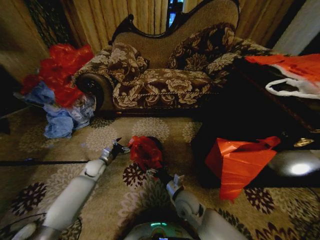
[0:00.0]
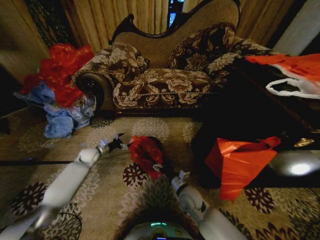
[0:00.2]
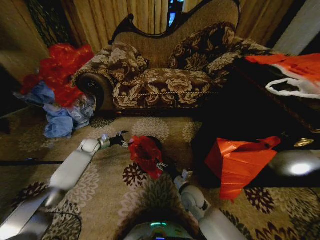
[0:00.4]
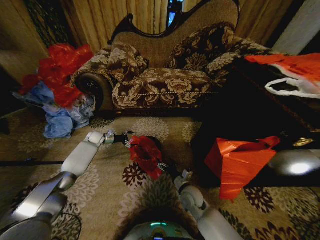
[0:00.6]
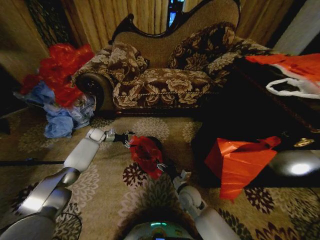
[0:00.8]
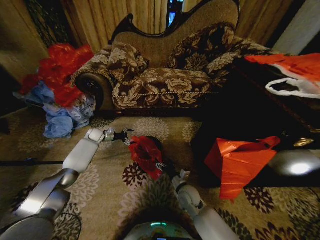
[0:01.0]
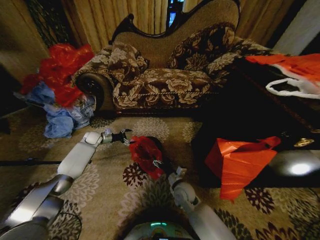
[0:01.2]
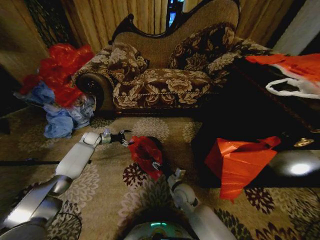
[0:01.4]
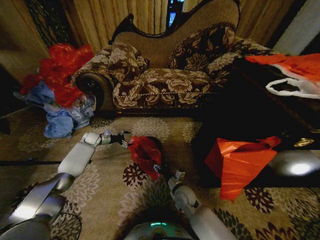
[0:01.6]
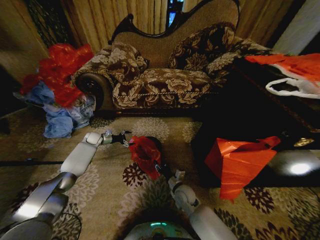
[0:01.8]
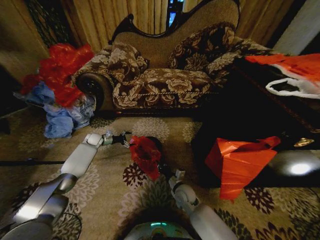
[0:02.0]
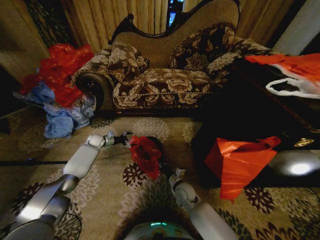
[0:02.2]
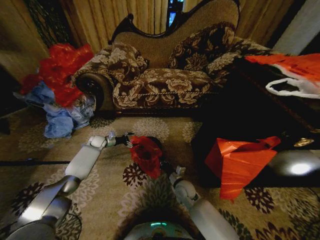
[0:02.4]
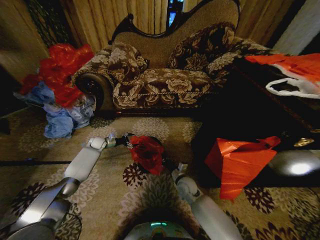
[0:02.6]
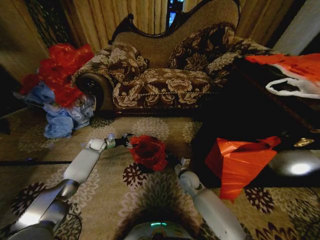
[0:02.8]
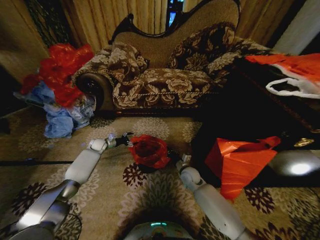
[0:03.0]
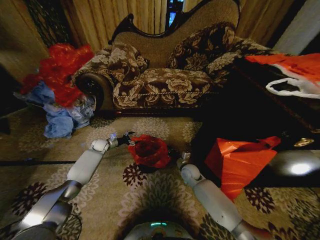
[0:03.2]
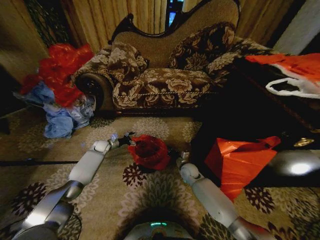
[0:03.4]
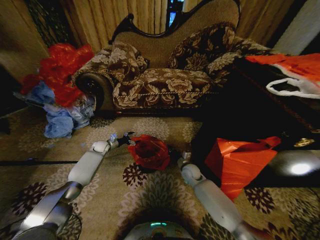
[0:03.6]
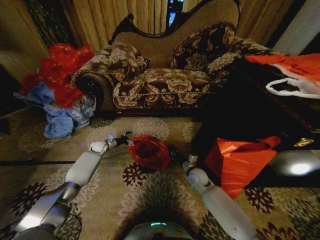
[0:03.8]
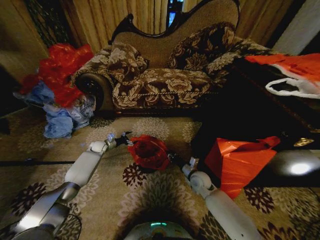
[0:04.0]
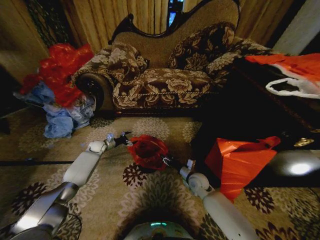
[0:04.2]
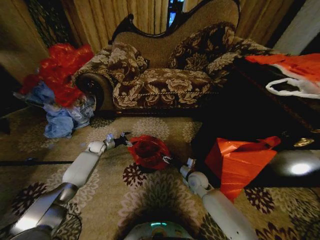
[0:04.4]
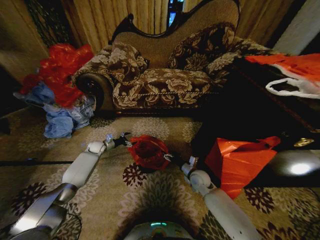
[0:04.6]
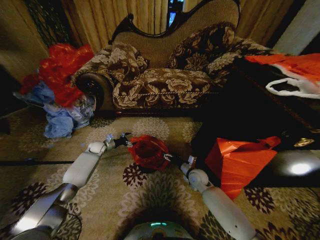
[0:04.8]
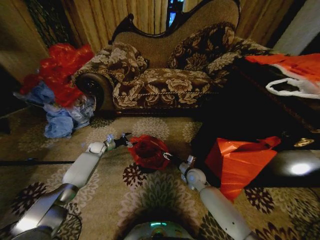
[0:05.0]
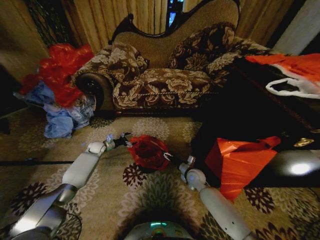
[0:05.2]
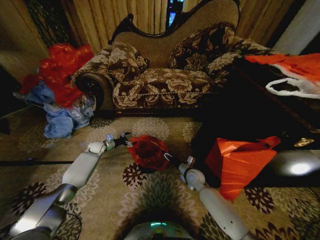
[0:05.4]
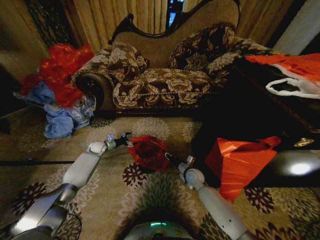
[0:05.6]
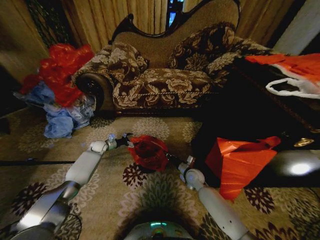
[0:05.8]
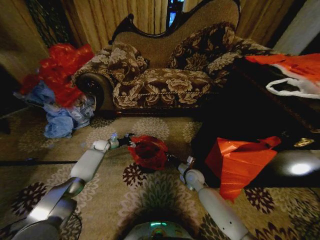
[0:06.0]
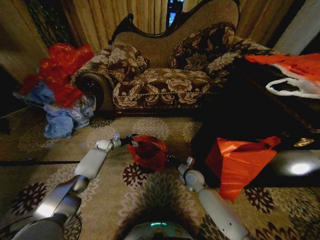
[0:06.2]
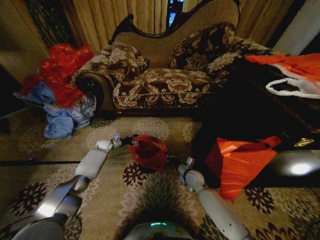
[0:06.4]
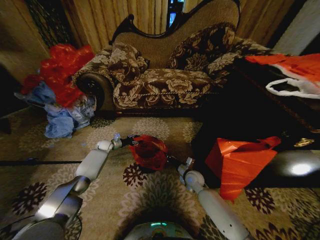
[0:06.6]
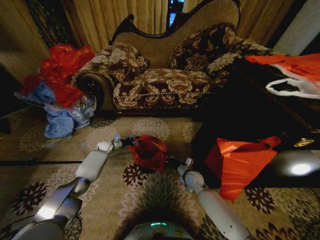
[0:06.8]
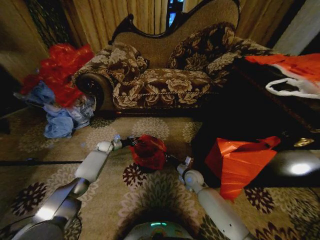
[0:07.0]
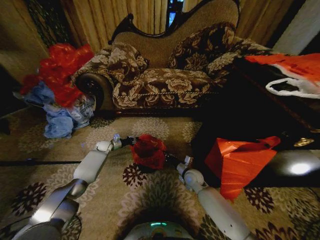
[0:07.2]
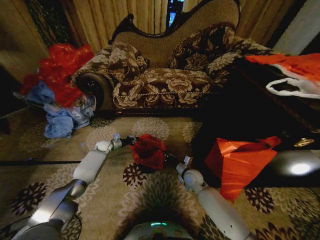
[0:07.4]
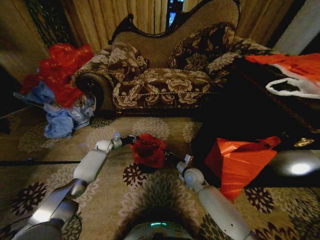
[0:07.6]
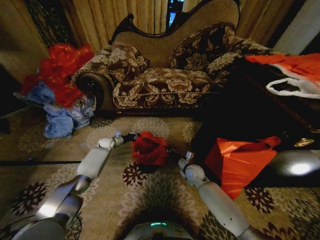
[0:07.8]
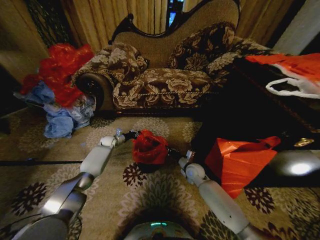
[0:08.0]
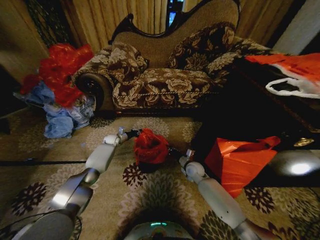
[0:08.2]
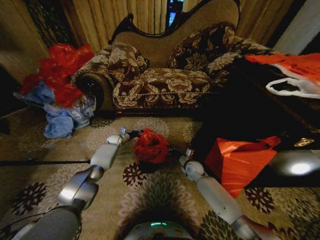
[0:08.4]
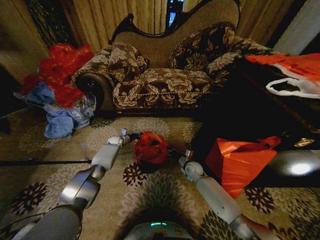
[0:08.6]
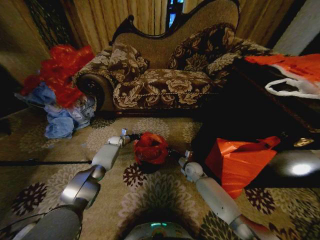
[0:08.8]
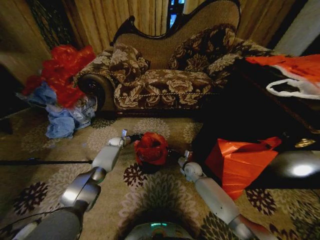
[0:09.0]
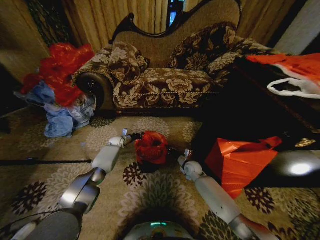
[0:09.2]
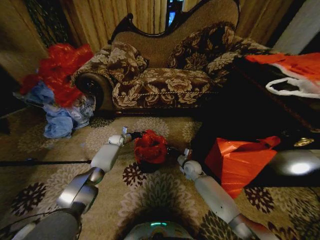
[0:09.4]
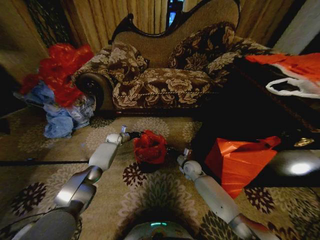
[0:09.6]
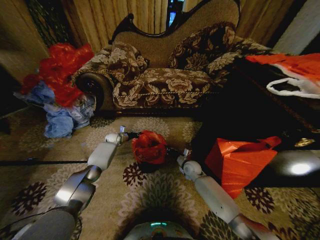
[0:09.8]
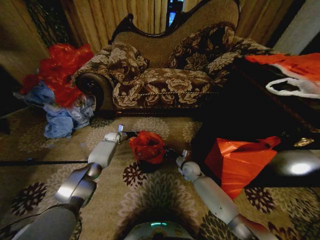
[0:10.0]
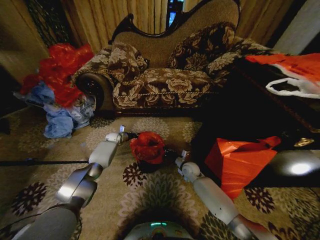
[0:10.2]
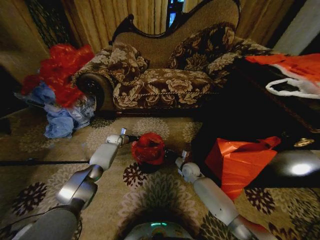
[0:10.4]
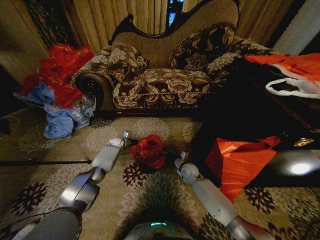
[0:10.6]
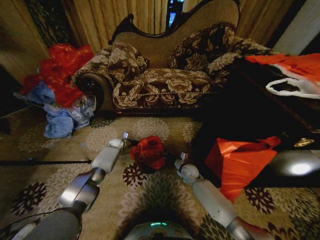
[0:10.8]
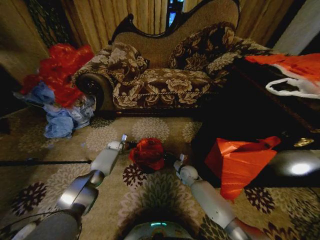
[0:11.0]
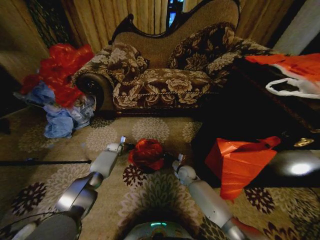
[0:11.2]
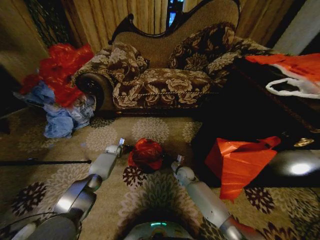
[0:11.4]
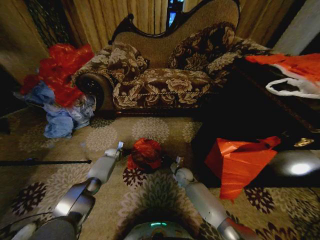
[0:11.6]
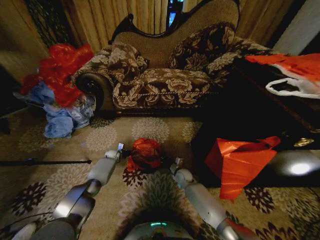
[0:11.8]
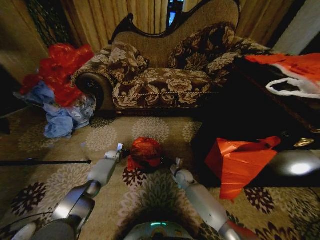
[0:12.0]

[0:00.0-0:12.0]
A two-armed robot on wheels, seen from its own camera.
Task of the whole recording: Place a garbage bag over the trash bin.
0.0 to 1.6 s: The right gripper shifts by some 5 cm. The left gripper goes some 15 cm forward and to the left.
1.6 to 3.0 s: The left gripper ends up about 5 cm from where it was. Meanwhile the right gripper goes approximately 10 cm forward, and closes.
3.0 to 4.4 s: The right gripper opens.
4.4 to 6.0 s: The right gripper closes its fingers.
6.0 to 7.6 s: The left gripper closes.
7.6 to 9.0 s: The right gripper is displaced forward by approximately 5 cm; the left gripper is displaced to the right by about 5 cm.
9.0 to 10.4 s: There are only small adjustments of the grippers.
10.4 to 12.0 s: The left gripper travels downward and backward by approximately 10 cm; the right gripper heads downward, covering about 5 cm.

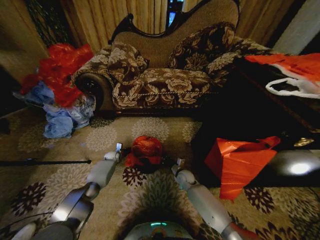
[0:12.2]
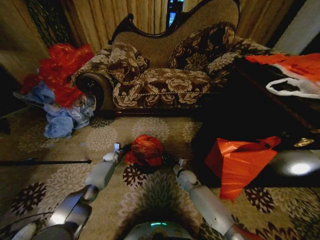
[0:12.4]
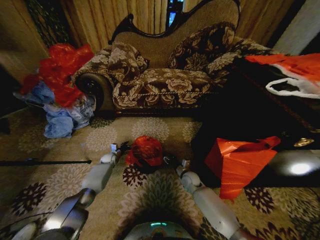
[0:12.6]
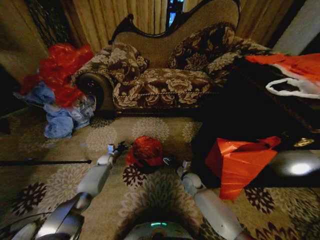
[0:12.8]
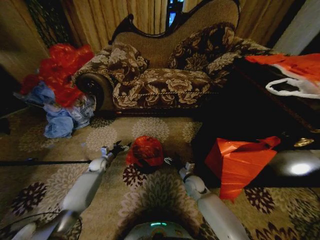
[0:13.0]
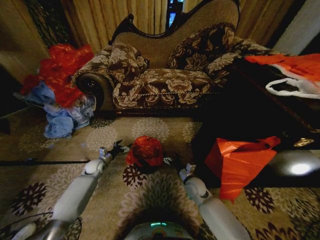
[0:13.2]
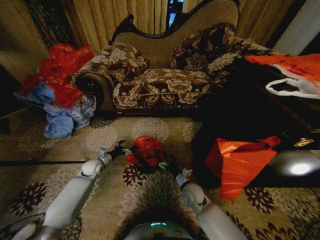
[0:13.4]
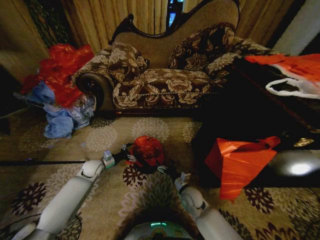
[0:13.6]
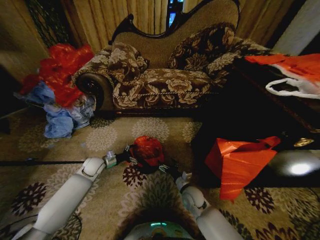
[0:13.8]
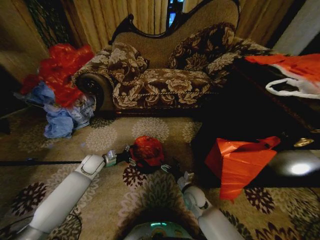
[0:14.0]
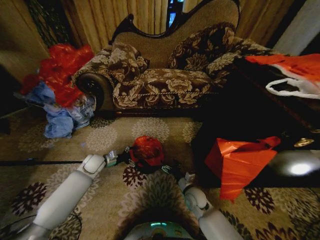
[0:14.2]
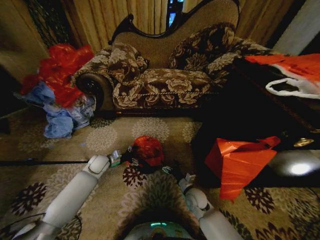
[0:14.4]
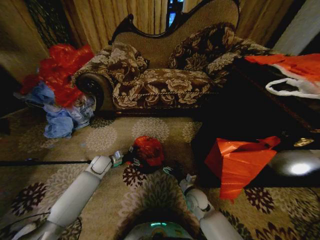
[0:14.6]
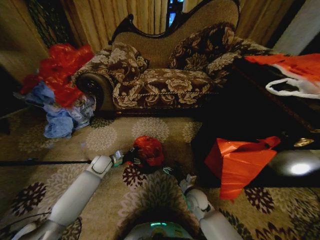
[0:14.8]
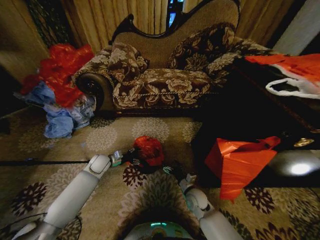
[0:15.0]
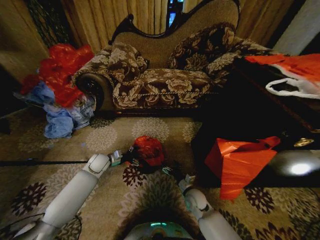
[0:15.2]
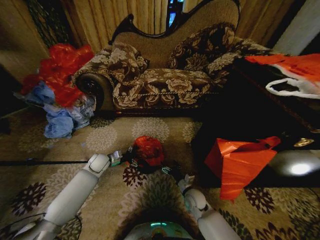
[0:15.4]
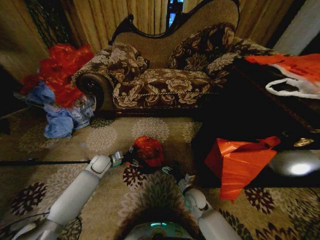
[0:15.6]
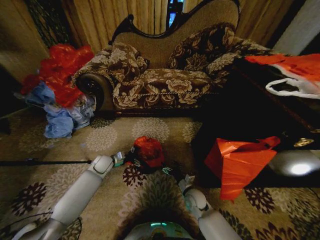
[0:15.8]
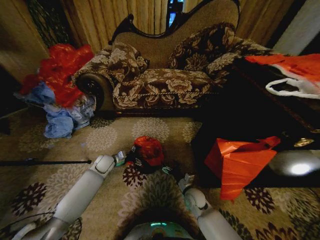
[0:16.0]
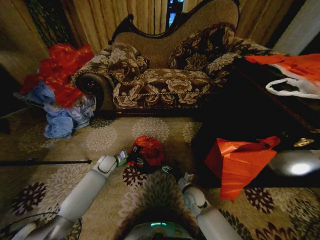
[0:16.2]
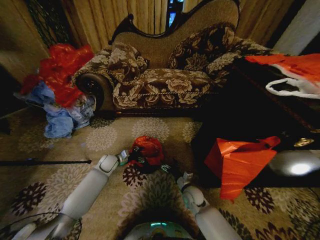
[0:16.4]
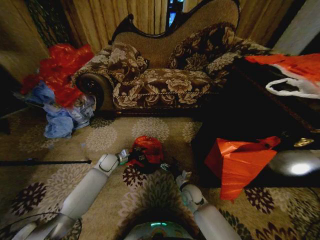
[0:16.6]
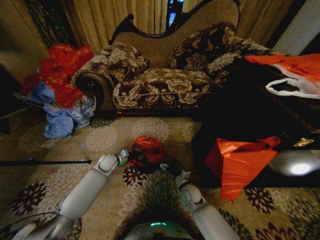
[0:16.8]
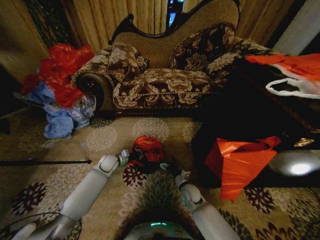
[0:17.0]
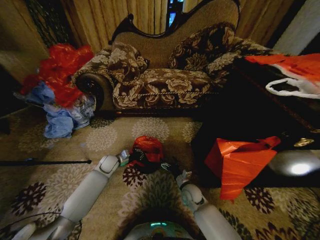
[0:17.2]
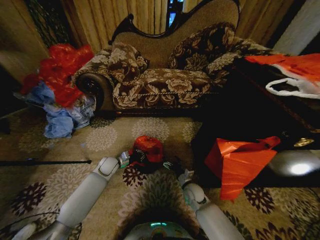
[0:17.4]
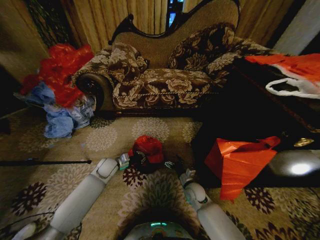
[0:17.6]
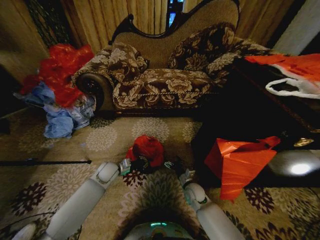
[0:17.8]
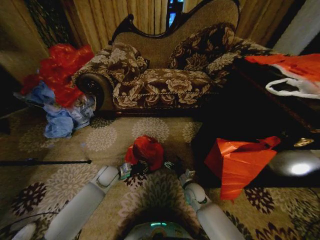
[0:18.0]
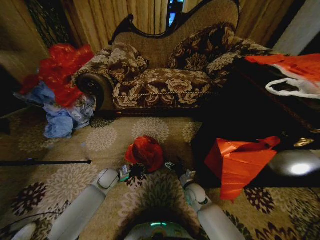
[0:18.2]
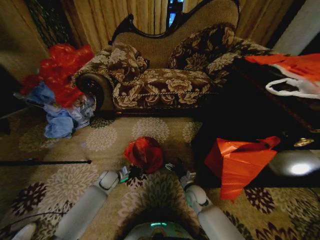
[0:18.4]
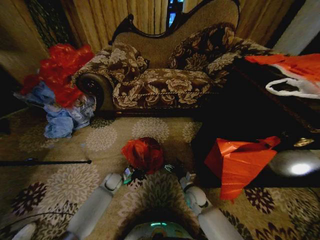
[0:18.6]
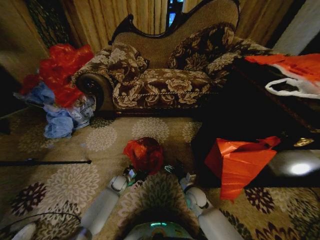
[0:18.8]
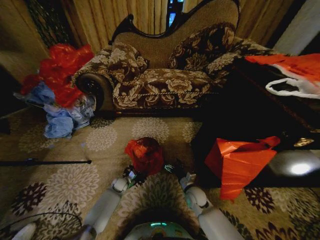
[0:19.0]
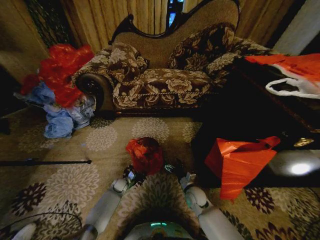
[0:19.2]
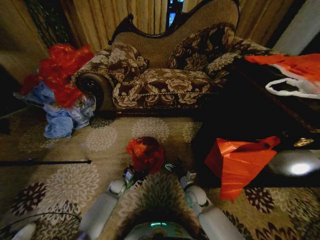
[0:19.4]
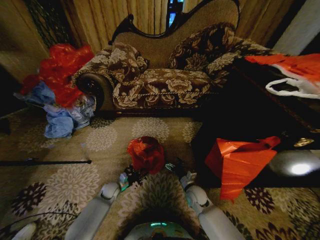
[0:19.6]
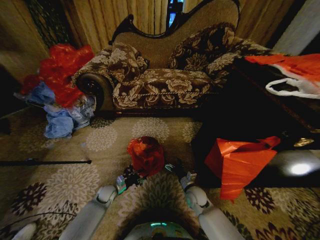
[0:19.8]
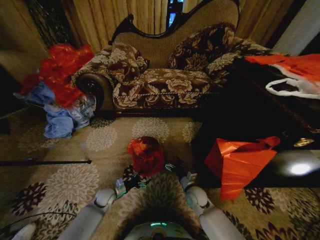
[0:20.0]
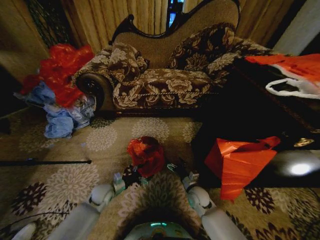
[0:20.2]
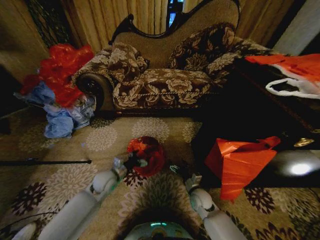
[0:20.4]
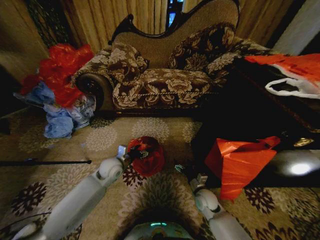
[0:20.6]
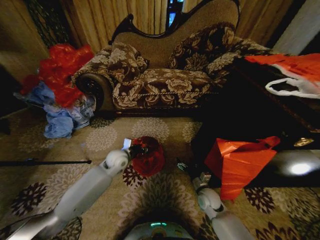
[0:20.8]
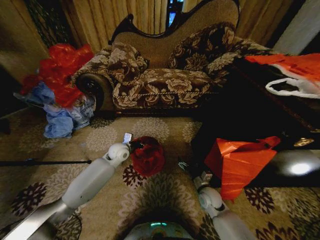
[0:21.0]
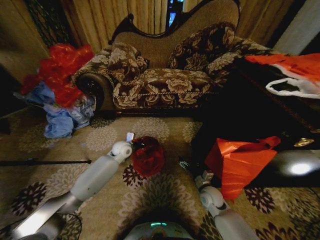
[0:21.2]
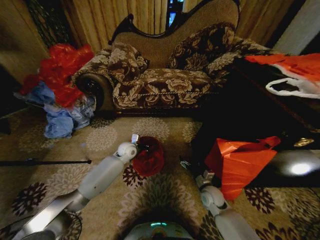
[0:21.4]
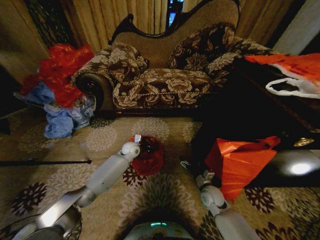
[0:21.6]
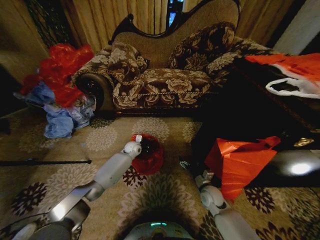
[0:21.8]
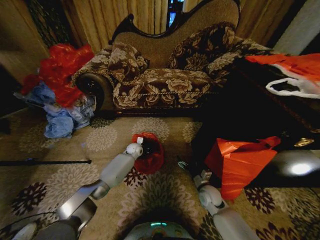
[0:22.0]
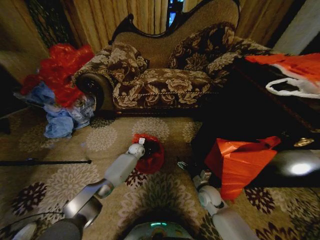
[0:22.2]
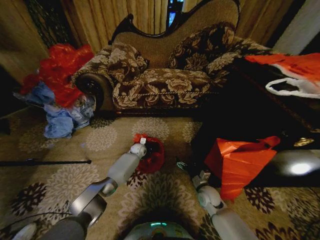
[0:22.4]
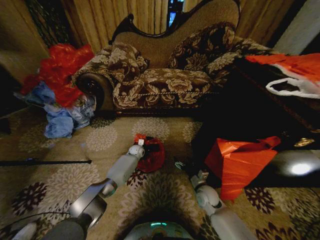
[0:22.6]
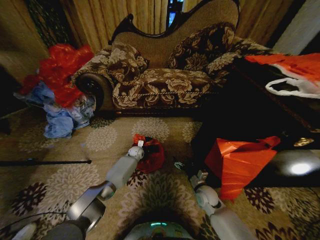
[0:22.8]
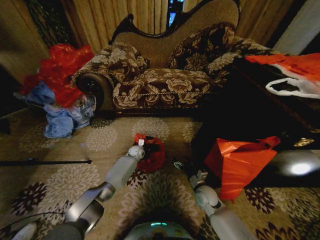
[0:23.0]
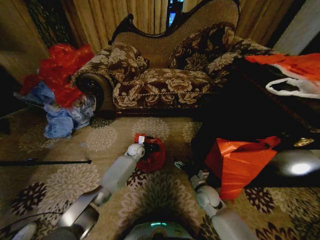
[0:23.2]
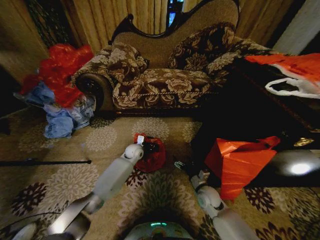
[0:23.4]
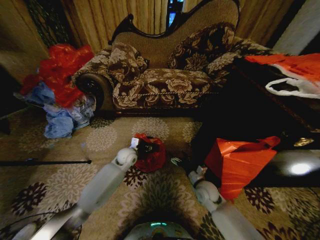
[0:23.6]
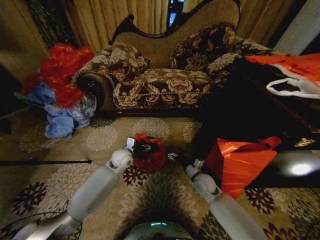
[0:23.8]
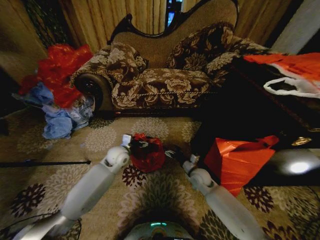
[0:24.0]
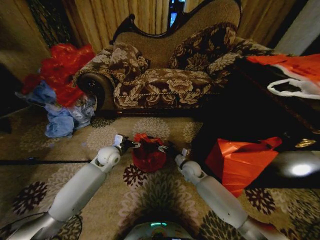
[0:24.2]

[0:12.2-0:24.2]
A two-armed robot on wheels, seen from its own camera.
Task of the whole recording: Place a garbage bag over the trash bin.
12.2 to 13.8 s: The right gripper is displaced backward by approximately 10 cm, and opens. Meanwhile the left gripper moves backward and upward, roughly 20 cm, and opens.
13.8 to 15.2 s: There are only small adjustments of the grippers.
15.2 to 16.6 s: The left gripper changes place by some 5 cm, and closes up.
16.6 to 18.2 s: The left gripper heads backward, covering roughly 5 cm, and closes up.
18.2 to 19.8 s: The left gripper heads downward, covering approximately 10 cm, and opens.
19.8 to 21.2 s: The left gripper travels upward, forward and to the right by about 30 cm, and closes its fingers, while the right gripper travels to the right by approximately 5 cm.
21.2 to 22.6 s: The left gripper travels downward and forward by about 15 cm.
22.6 to 24.2 s: The left gripper is displaced upward, backward and to the left by about 25 cm, and opens its fingers, while the right gripper moves forward, to the left and upward, roughly 15 cm.
